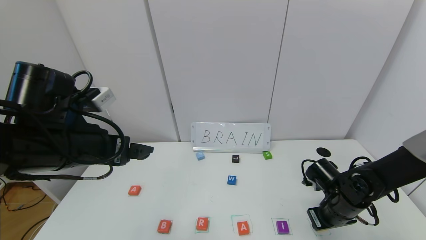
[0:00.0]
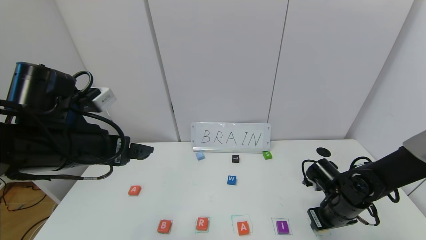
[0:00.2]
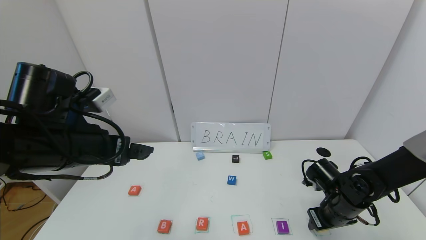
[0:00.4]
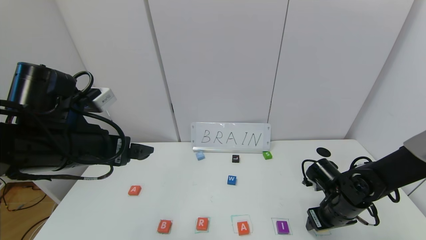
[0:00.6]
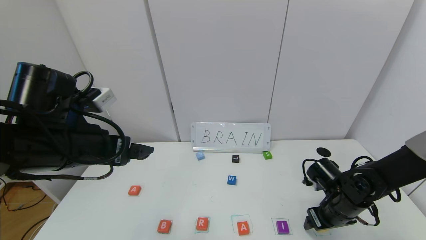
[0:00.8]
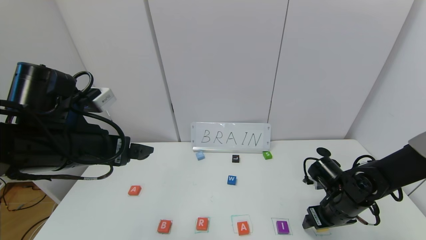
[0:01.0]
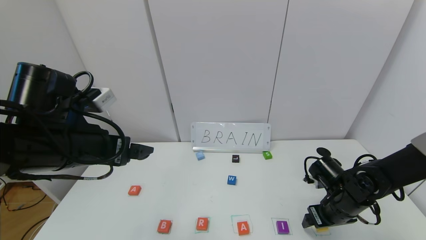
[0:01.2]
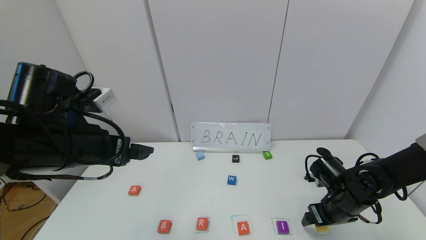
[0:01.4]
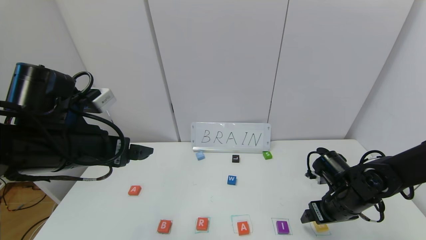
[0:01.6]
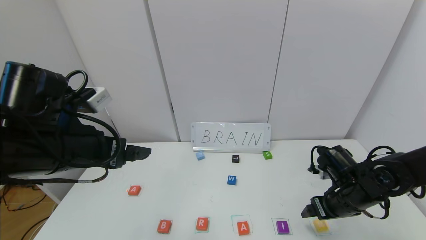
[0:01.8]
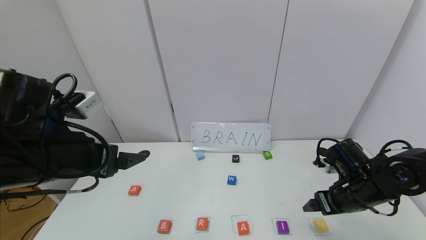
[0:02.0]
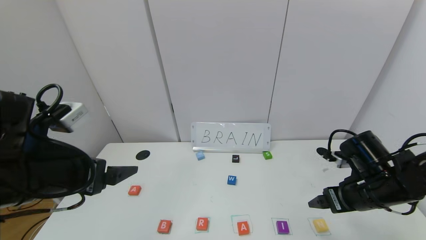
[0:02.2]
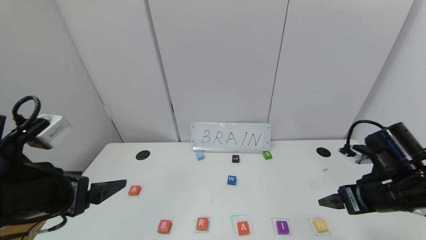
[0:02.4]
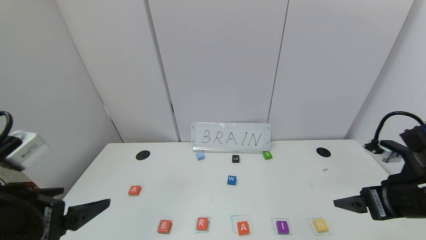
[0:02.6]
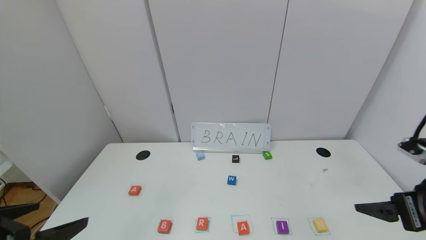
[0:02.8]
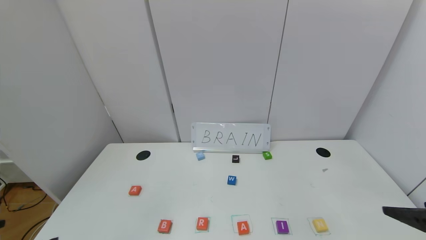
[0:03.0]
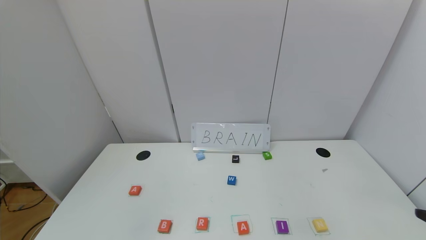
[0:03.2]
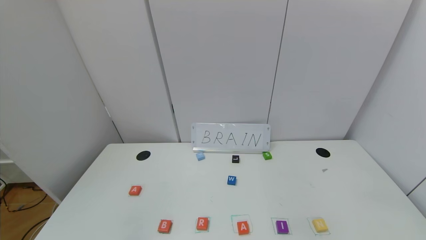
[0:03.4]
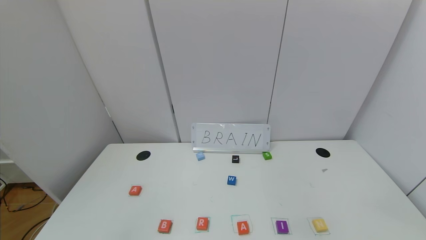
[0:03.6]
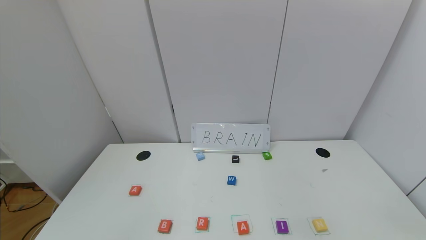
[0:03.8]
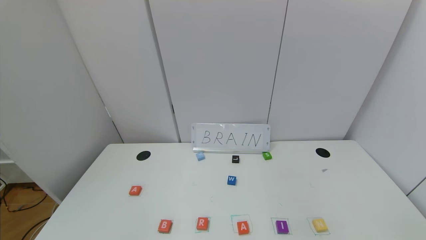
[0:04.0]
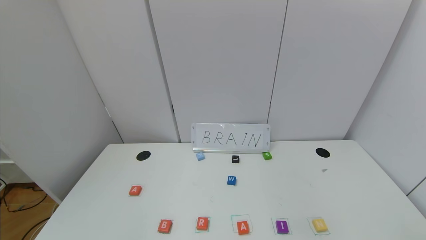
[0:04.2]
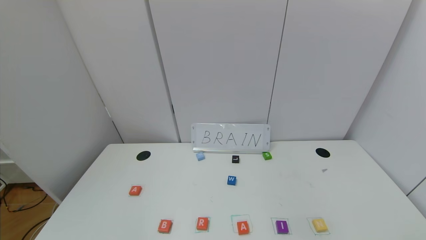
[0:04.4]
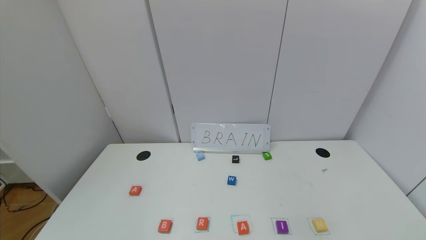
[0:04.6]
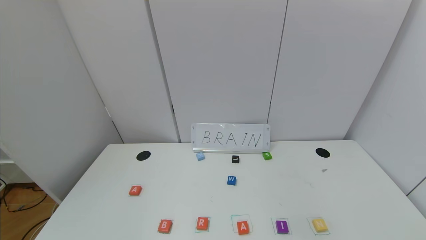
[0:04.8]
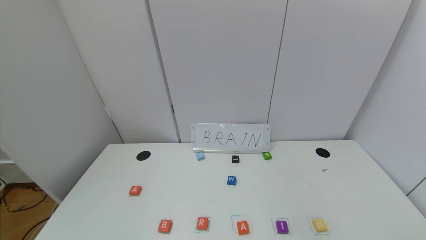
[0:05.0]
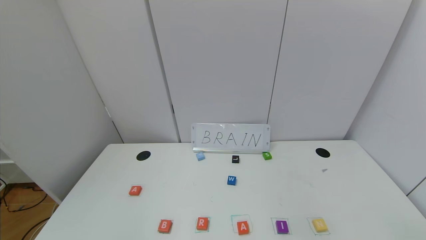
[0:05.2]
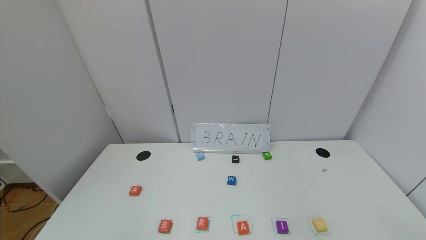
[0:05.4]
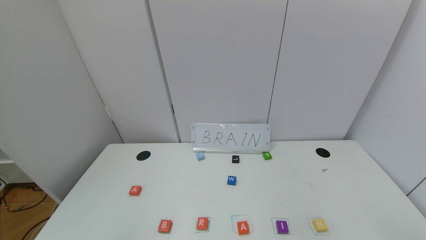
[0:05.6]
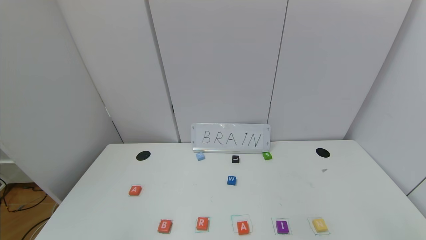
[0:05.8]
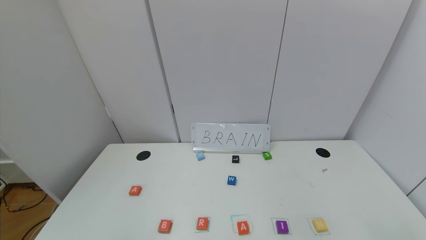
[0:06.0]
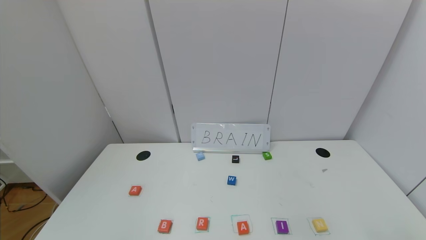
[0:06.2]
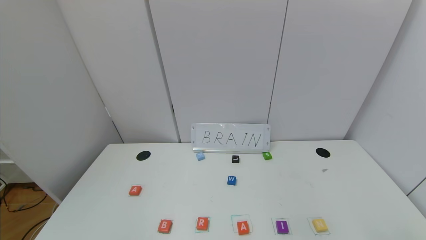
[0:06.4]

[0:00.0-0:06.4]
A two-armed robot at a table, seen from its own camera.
Task of the whole recording: use the gripper to find blocks with the letters b, a, a, and i on the table and arrange them into BAAI, then find r and N and turn the arranged baai into brian.
0:00.0 to 0:01.6: The right gripper opens its fingers.
0:01.6 to 0:03.2: The left gripper shifts some 20 cm backward, while the right gripper moves backward and upward, about 25 cm.
